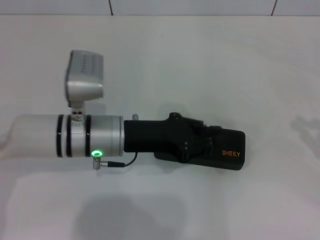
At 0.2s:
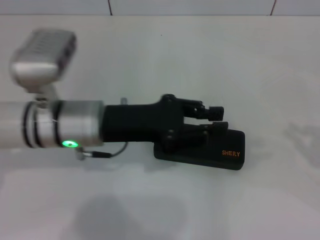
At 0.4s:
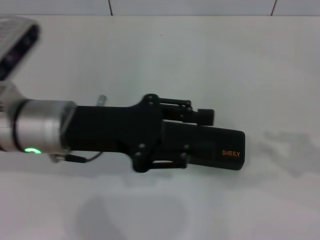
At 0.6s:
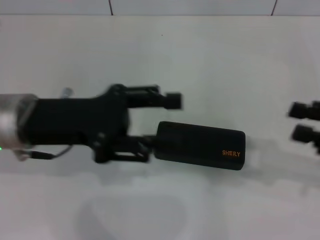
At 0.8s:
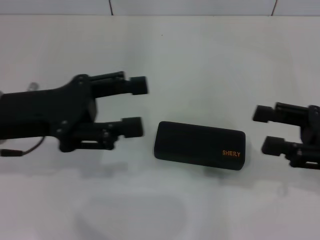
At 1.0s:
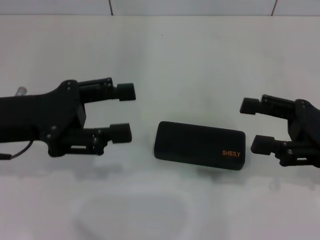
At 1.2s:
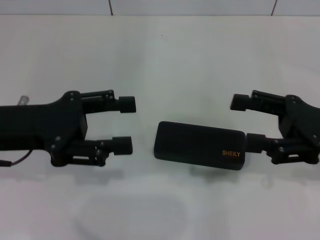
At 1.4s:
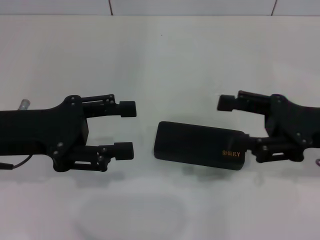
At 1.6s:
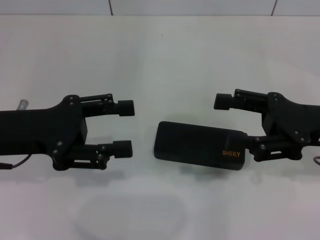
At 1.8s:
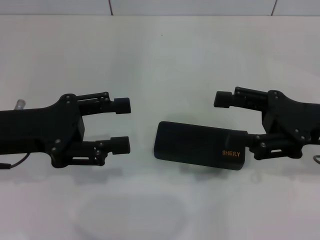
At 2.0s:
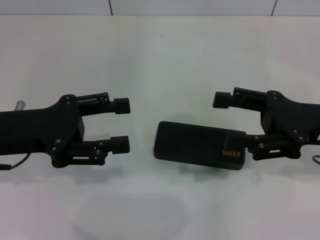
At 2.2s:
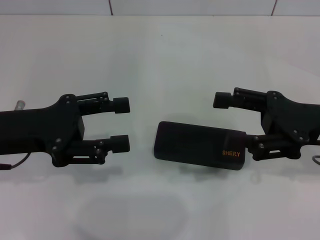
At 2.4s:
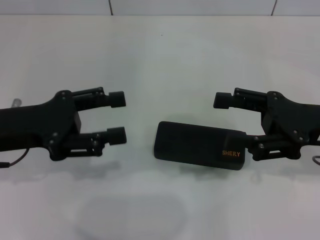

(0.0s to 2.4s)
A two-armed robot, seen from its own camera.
0.0s - 1.2s: The right gripper goes some 15 cm to the left, and opens, while the left gripper shifts approximately 15 cm to the left and upward, and opens.
1.2s - 2.4s: The grippers move only a little.
